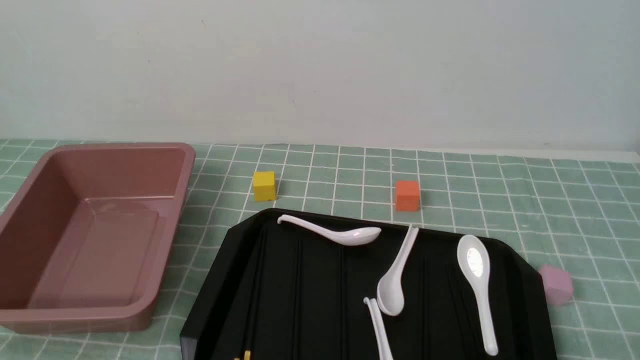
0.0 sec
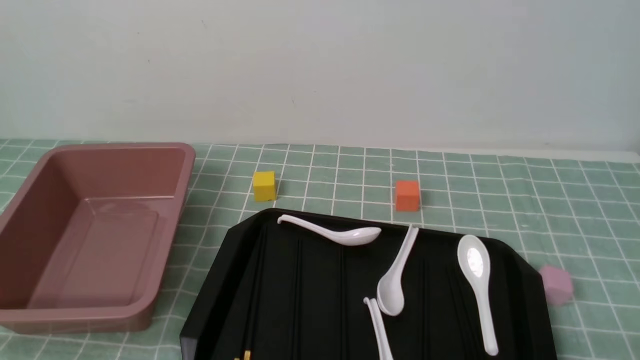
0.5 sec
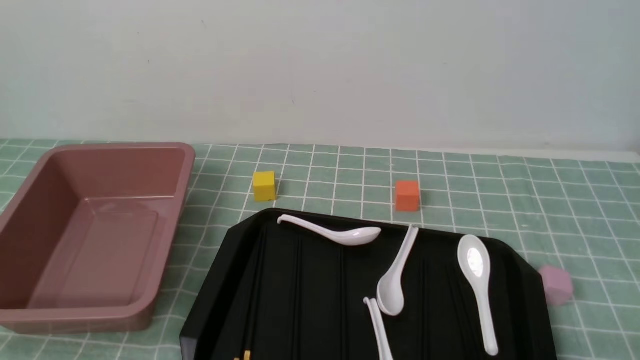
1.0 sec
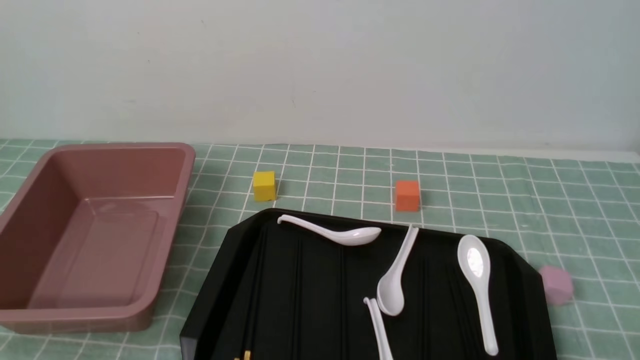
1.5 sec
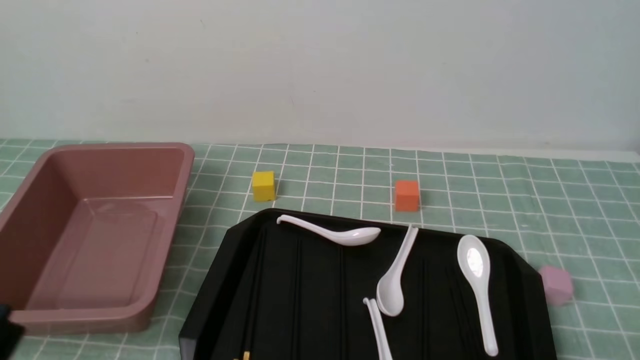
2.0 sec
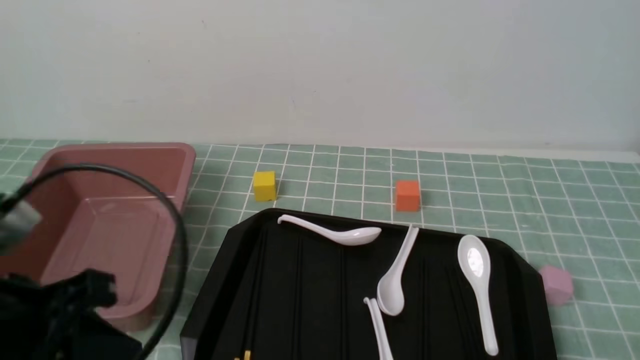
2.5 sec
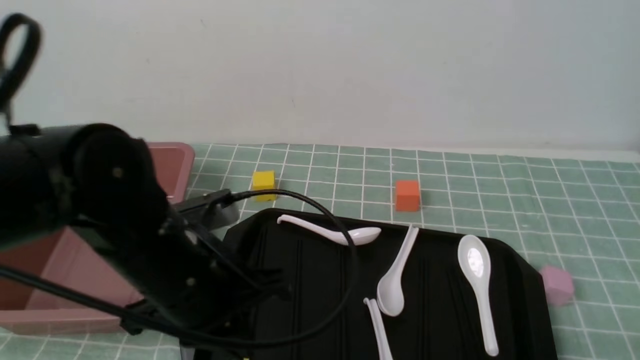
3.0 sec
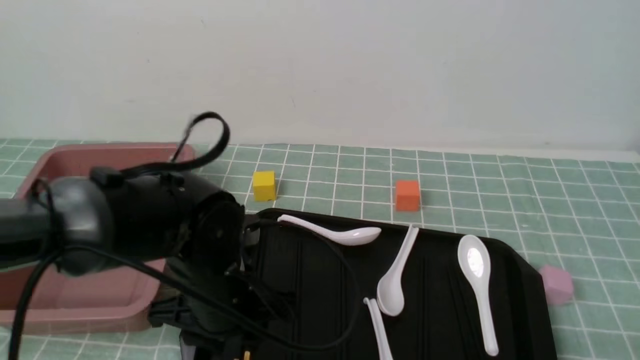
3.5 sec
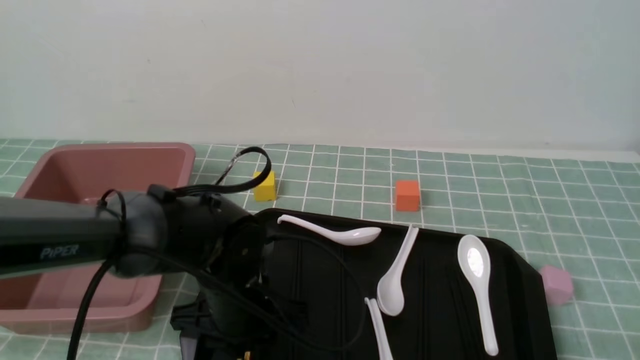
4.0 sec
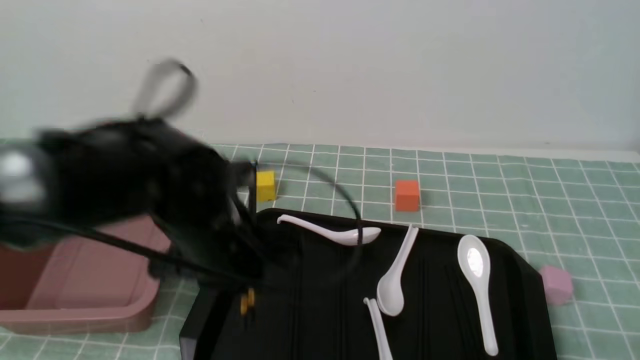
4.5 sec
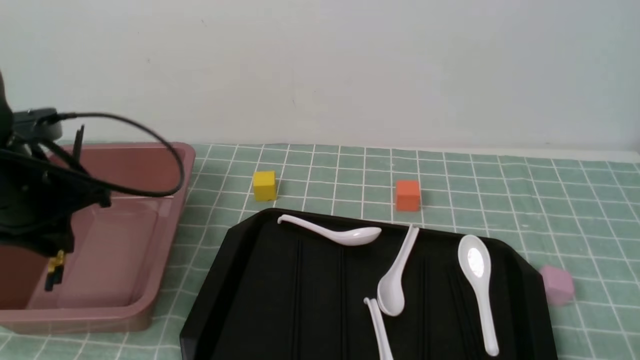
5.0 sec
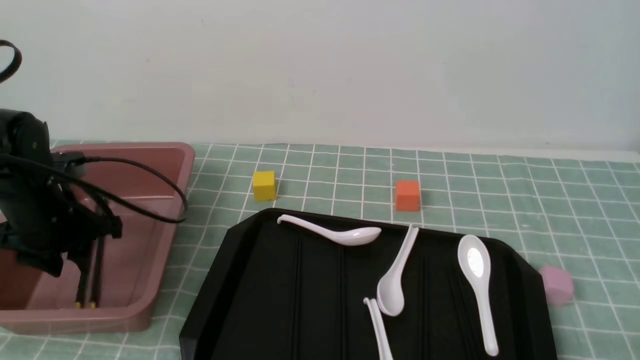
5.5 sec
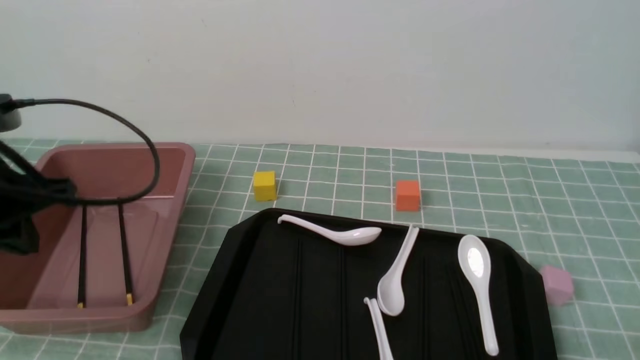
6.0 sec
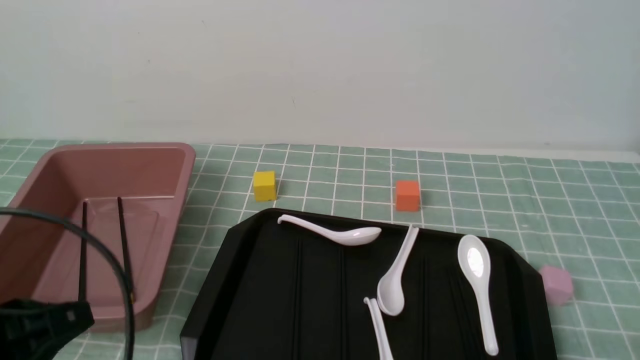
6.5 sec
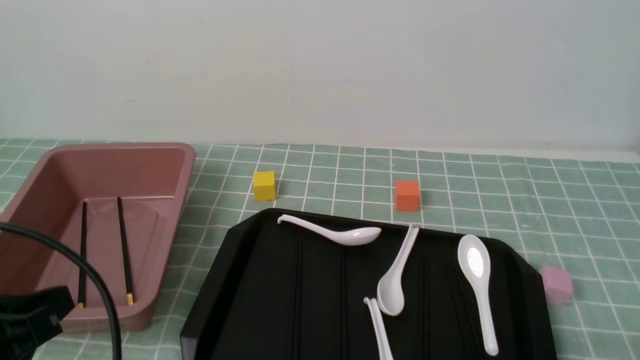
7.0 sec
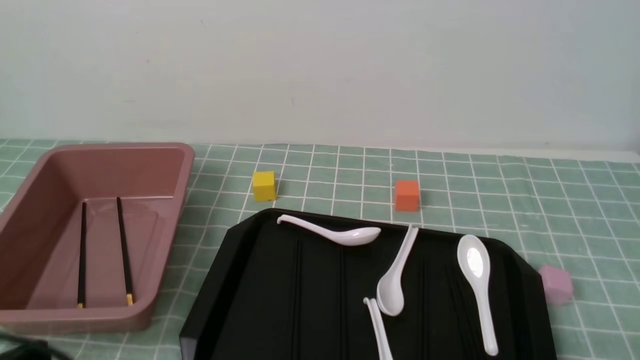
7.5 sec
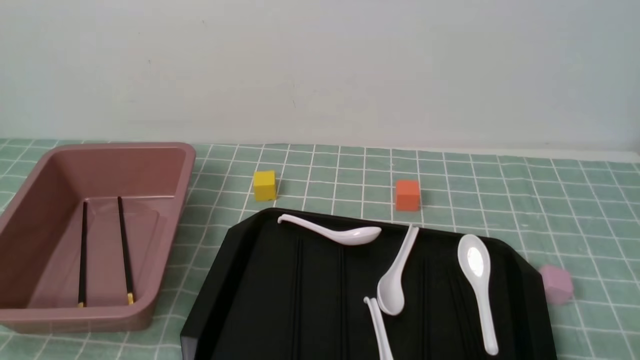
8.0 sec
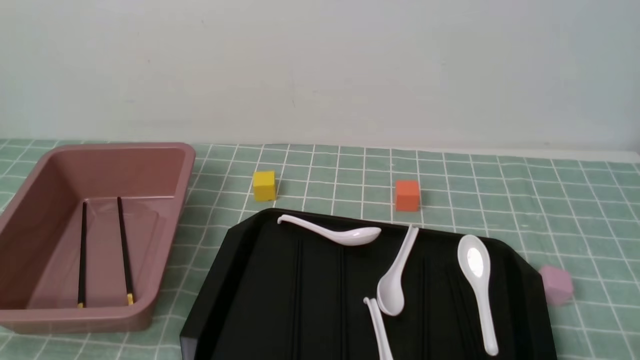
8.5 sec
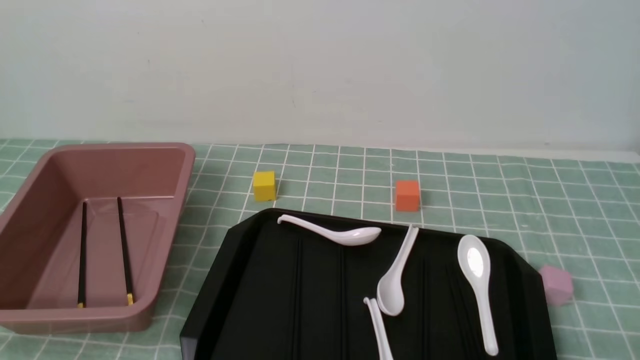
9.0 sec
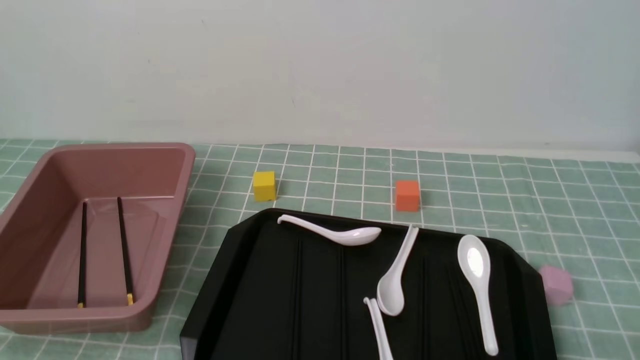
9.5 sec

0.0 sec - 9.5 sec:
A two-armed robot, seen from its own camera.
Step, 0.0 sec - 4.5 sec: use the left arm to grab a pair of chopsticks.
Step, 5.0 sec - 6.0 sec: use the left arm to put the chopsticks into the lunch box.
2.0 sec - 4.0 sec: The left gripper heads forward, to the right and downward, covering some 30 cm, and closes, then reopens.
4.0 sec - 5.5 sec: The left gripper moves to the left, approximately 20 cm.
5.5 sec - 7.5 sec: The left gripper travels backward by approximately 25 cm, and closes up.

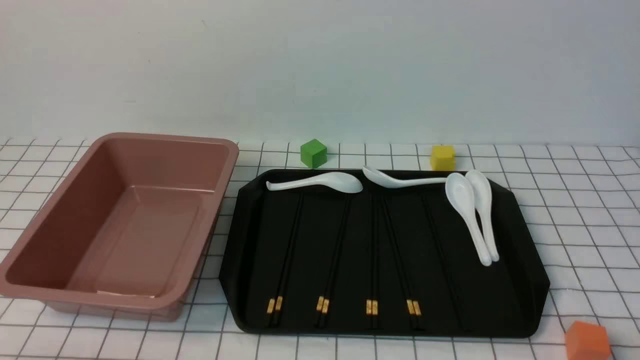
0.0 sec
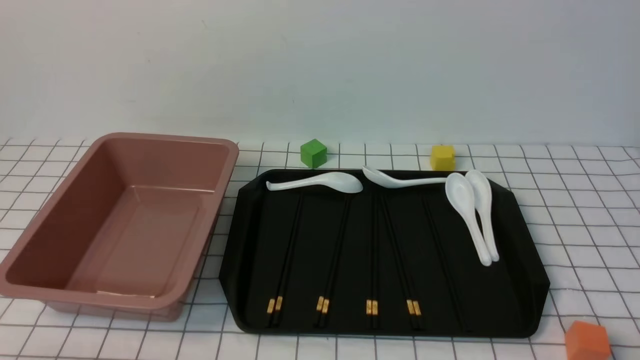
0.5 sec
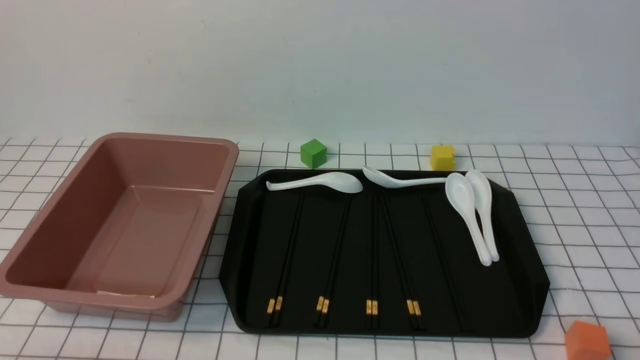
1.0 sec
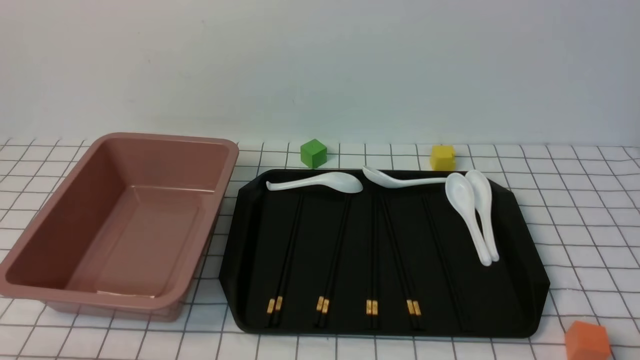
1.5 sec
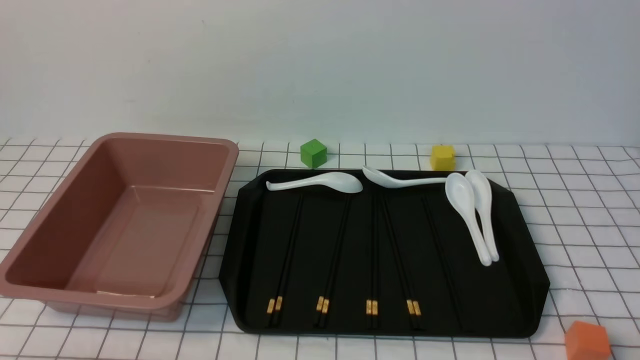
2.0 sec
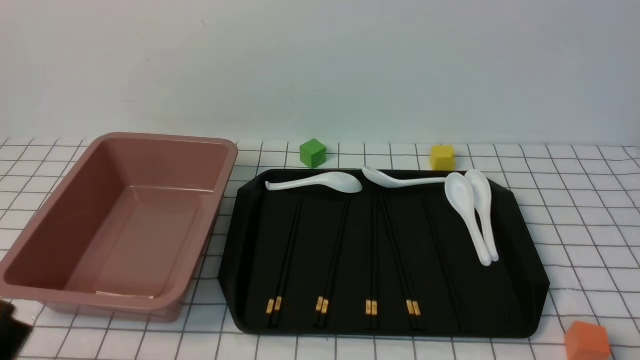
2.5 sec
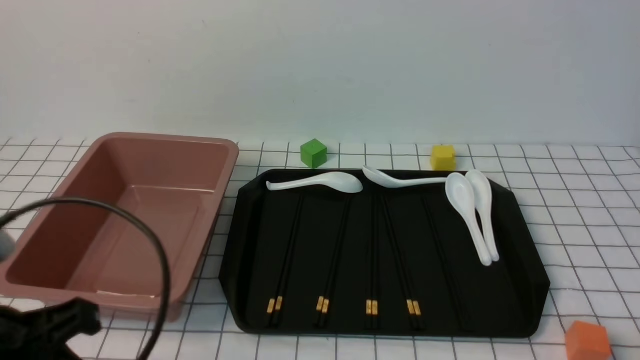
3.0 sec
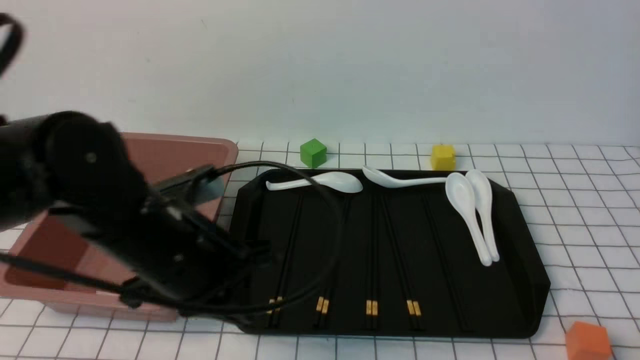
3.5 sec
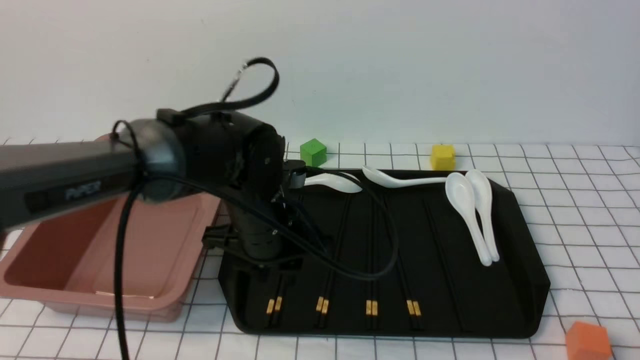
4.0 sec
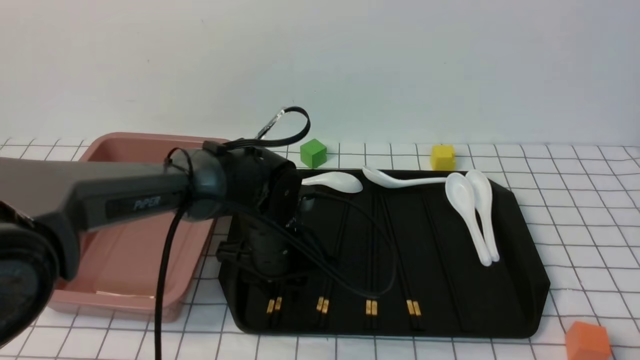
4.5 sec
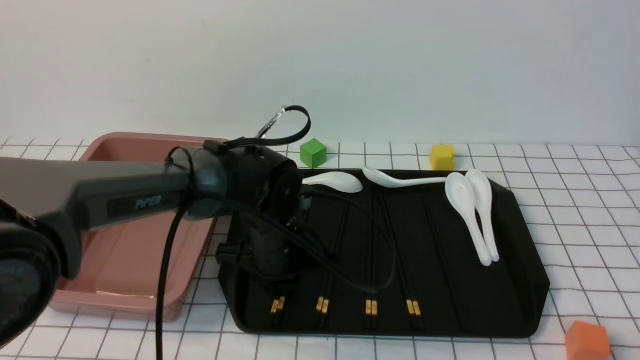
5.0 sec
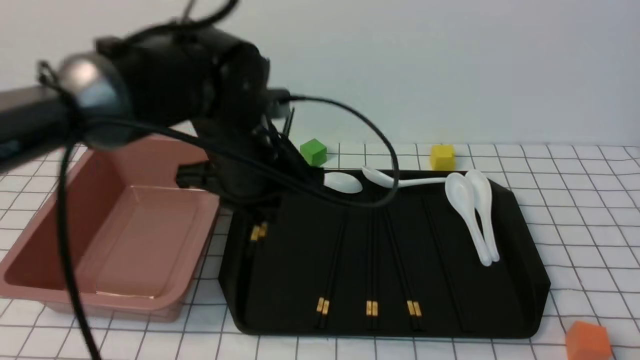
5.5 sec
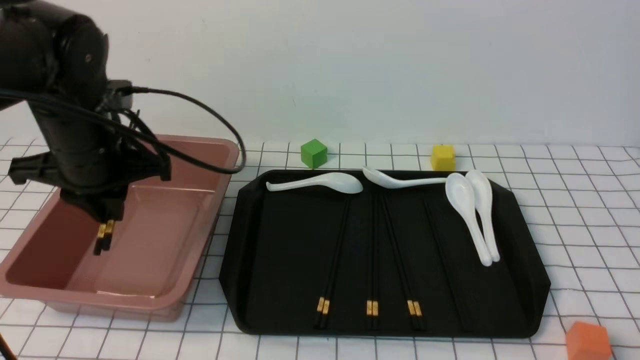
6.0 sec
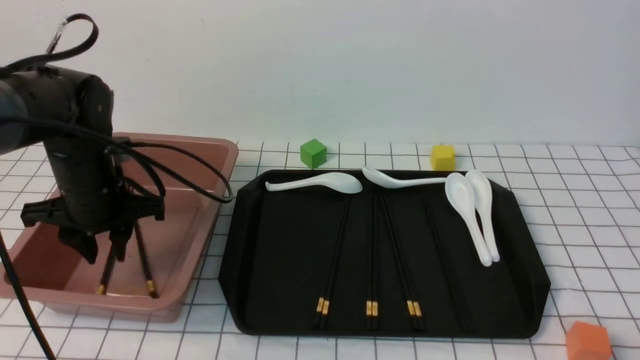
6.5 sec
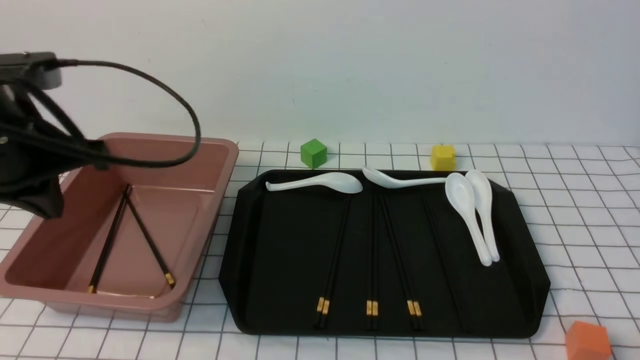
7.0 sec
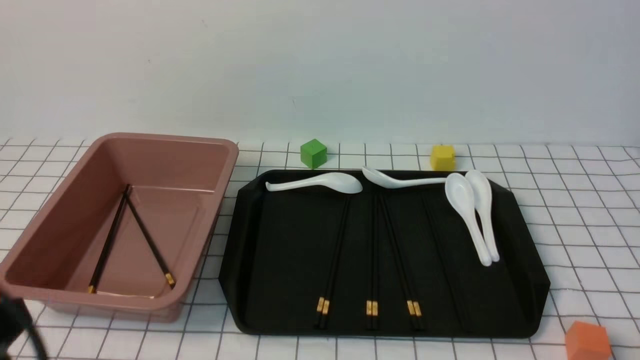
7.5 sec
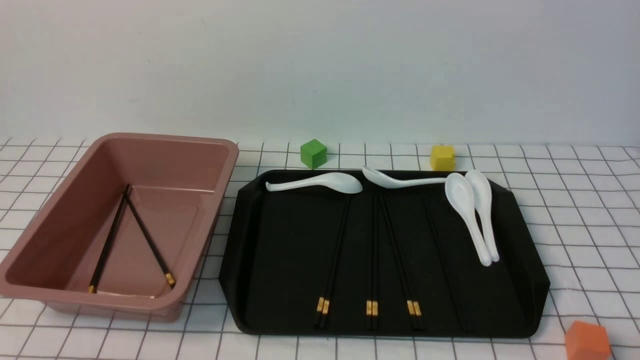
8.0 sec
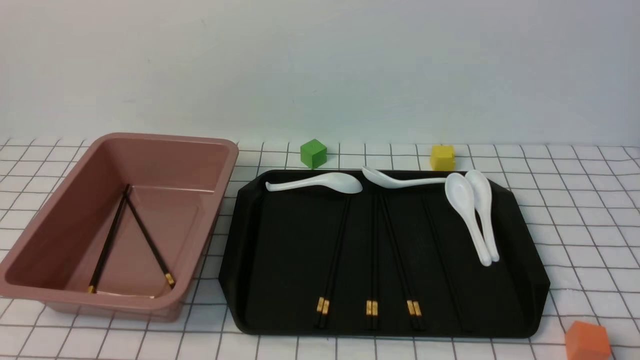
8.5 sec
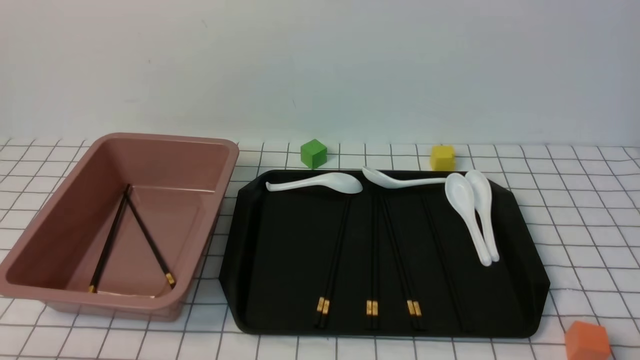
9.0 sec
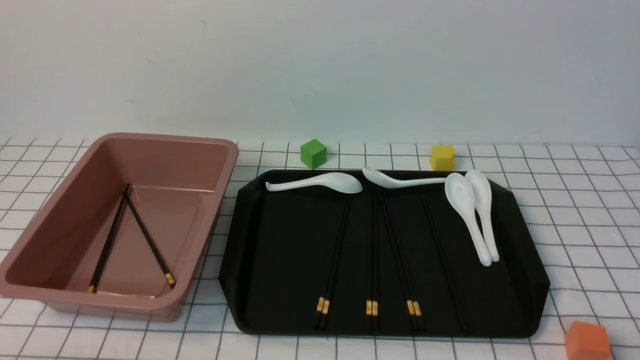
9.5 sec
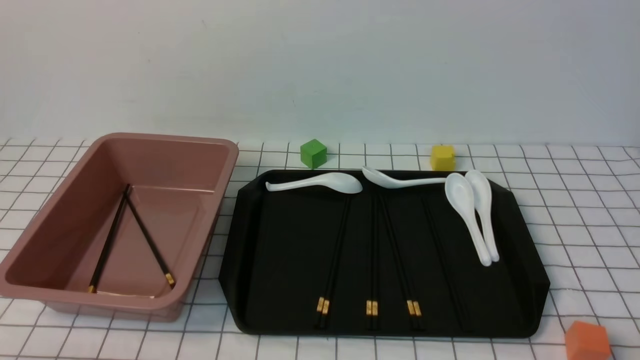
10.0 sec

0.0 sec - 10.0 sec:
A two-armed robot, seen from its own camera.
Step, 0.0 sec - 5.5 sec: use the left arm to grab a pair of chopsticks.
Step, 6.0 sec - 6.5 sec: use the left arm to put the chopsticks into the lunch box.
2.0 sec - 4.0 sec: The left gripper heads forward and to the right, covering some 35 cm, and closes, then opens again.
4.0 sec - 6.0 sec: The left gripper goes approximately 15 cm to the left and upward, and closes its fingers.
6.0 sec - 8.0 sec: The left gripper goes about 30 cm backward, and closes.
